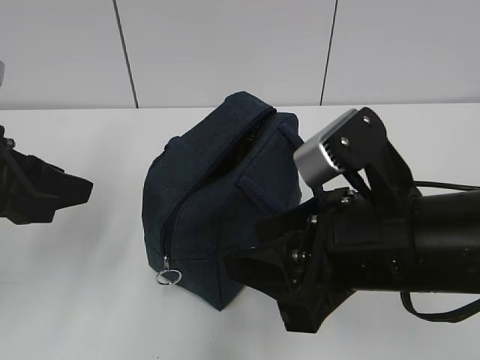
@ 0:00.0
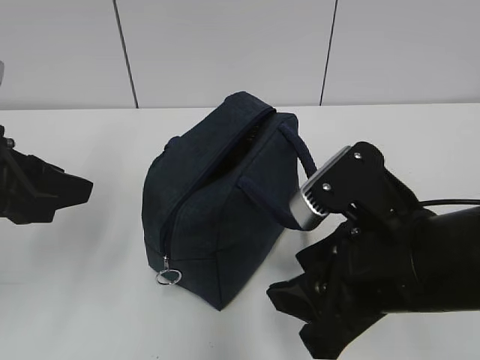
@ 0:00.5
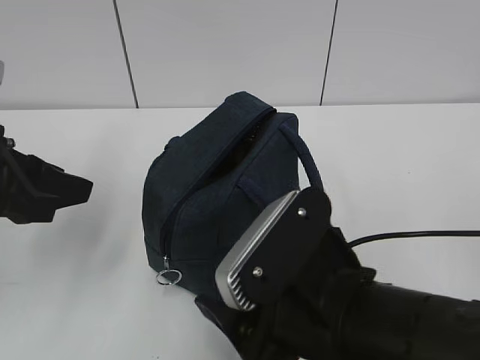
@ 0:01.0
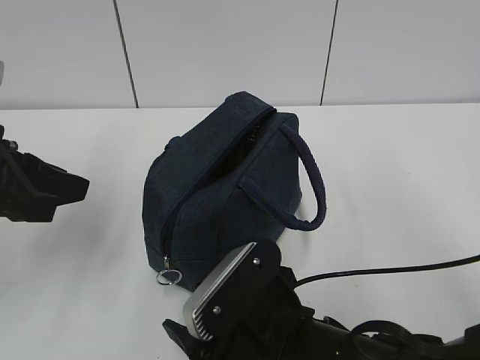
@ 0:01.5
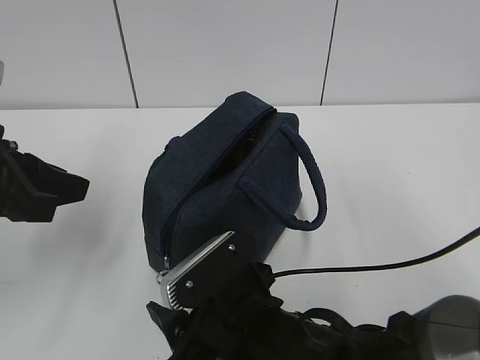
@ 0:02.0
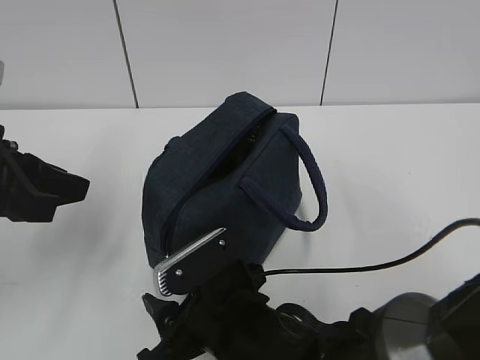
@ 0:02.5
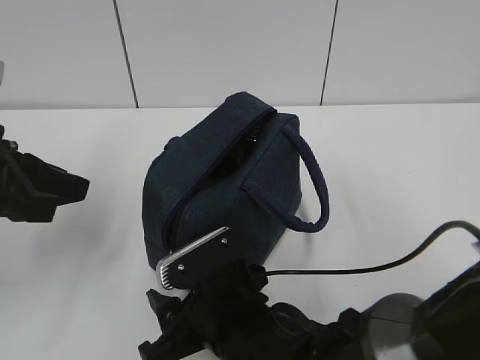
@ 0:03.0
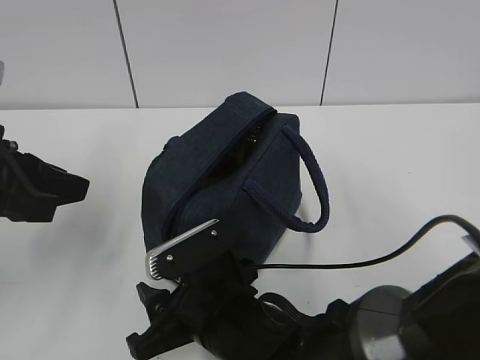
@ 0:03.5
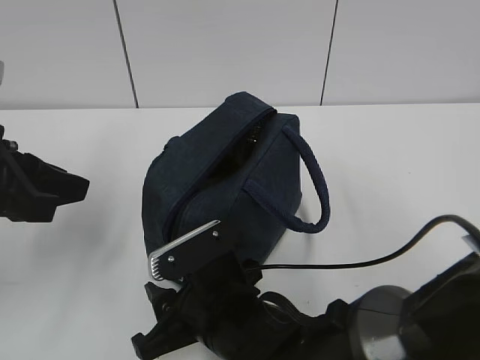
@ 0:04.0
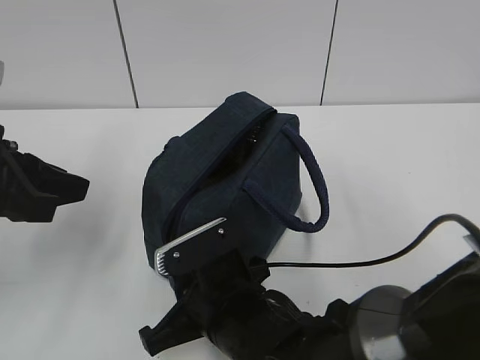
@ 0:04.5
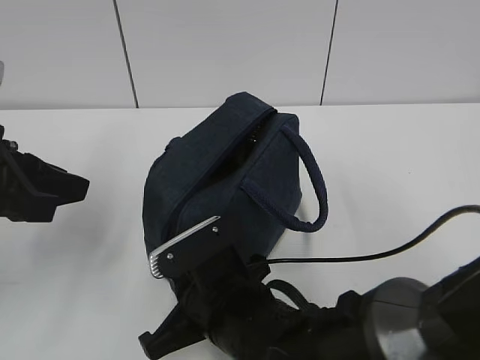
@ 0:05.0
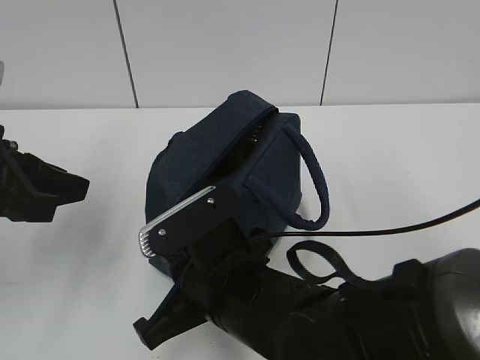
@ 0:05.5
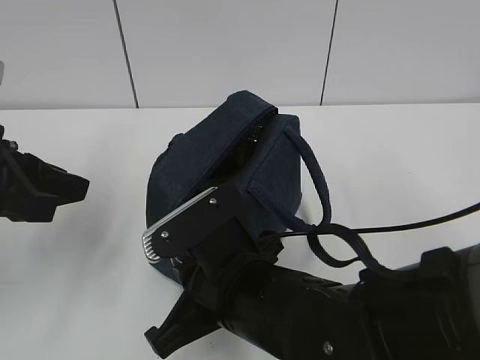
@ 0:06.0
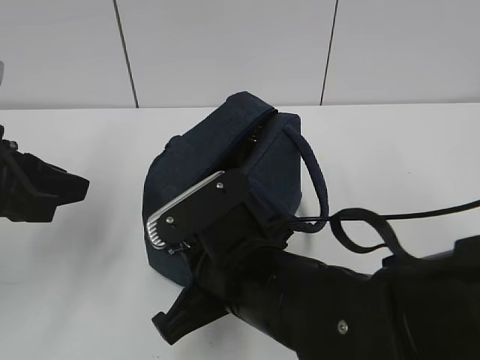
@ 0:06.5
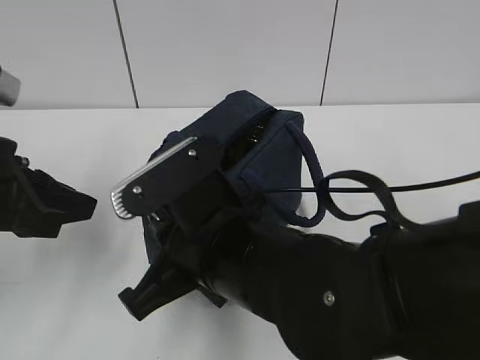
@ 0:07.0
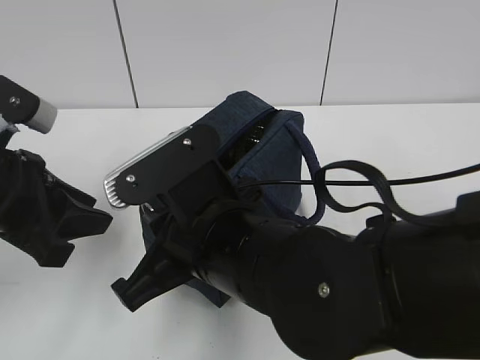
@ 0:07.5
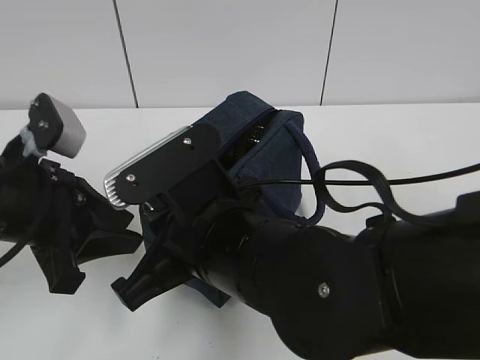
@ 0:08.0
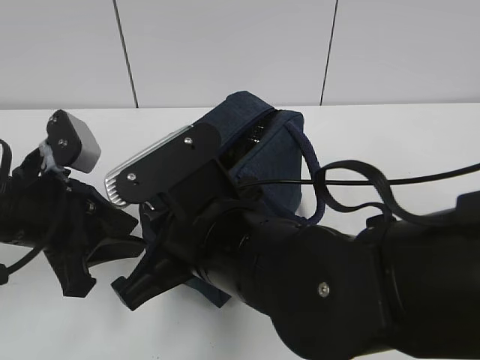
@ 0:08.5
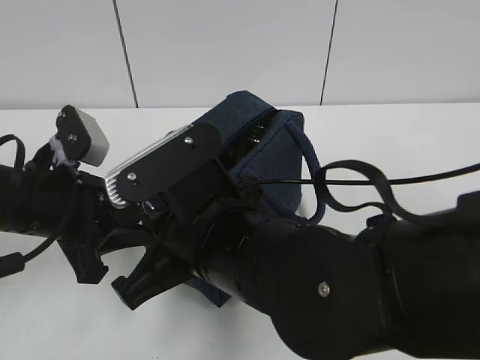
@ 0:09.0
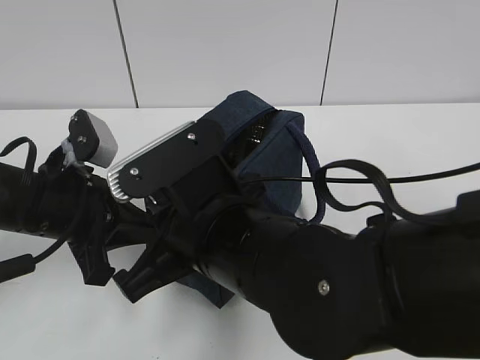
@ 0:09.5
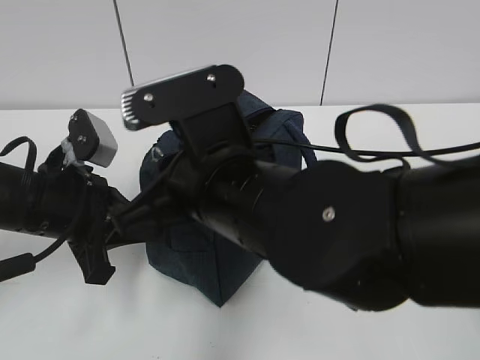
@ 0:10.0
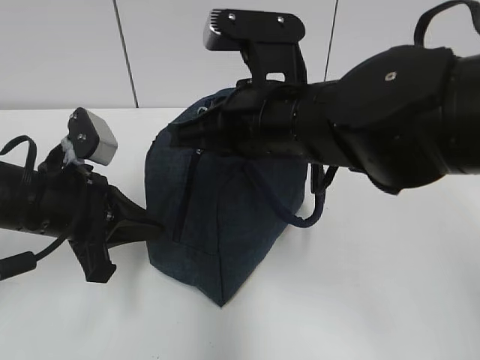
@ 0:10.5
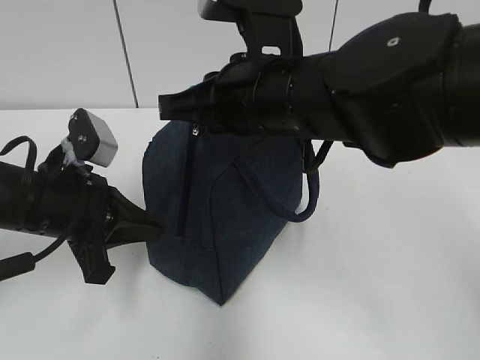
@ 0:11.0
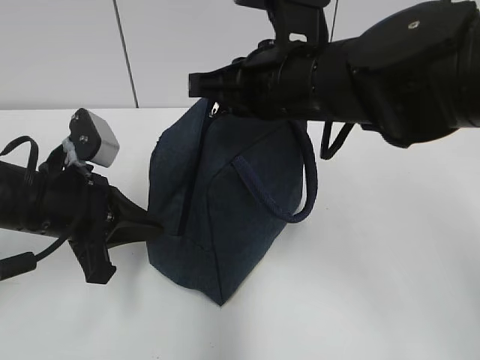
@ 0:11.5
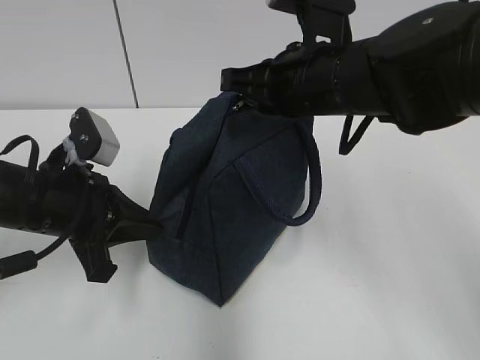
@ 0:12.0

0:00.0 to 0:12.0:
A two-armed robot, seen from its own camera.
0:00.0 to 0:02.0: The right gripper is displaced downward and to the left by some 15 cm.
0:02.0 to 0:04.0: There are only small adjustments of the grippers.
0:04.0 to 0:06.0: The right gripper heads upward, covering about 5 cm, and closes up.
0:06.0 to 0:08.0: The right gripper is displaced upward by about 5 cm; the left gripper shifts by about 5 cm.
0:08.0 to 0:10.0: The left gripper changes place by some 5 cm, and closes.
0:10.0 to 0:12.0: The right gripper shifts approximately 15 cm forward and to the right.

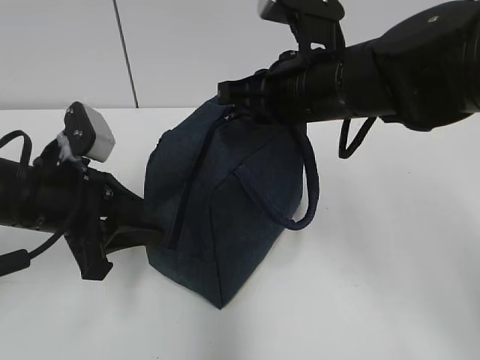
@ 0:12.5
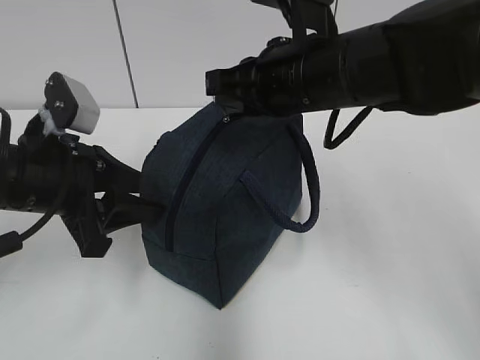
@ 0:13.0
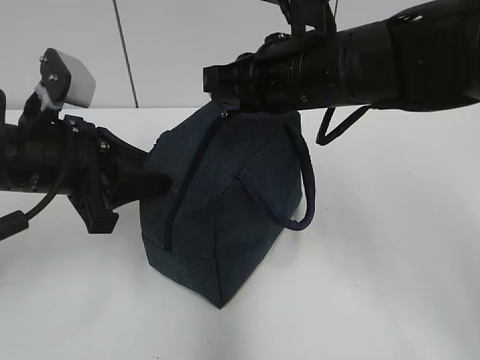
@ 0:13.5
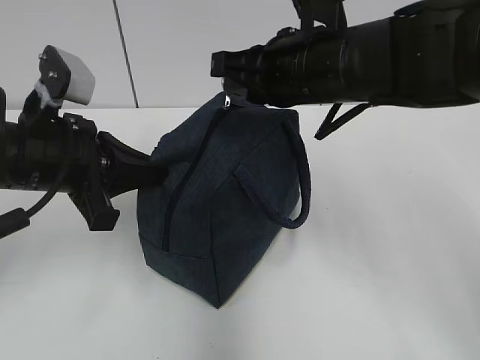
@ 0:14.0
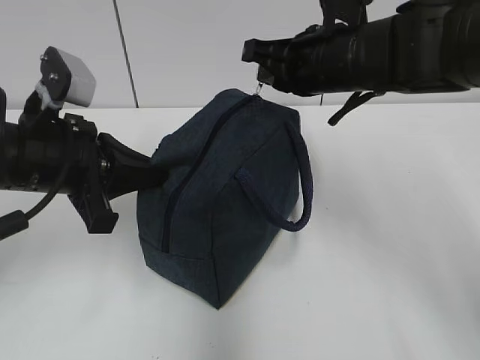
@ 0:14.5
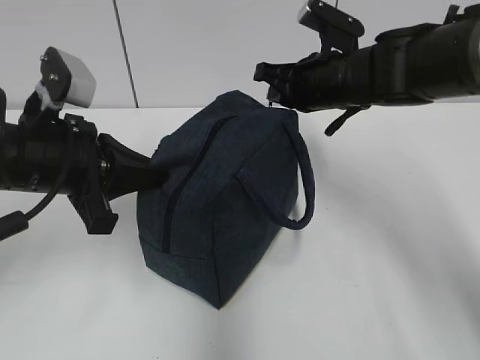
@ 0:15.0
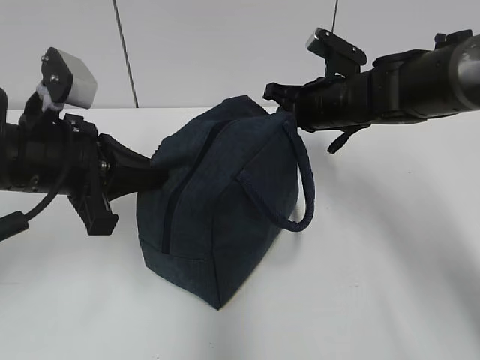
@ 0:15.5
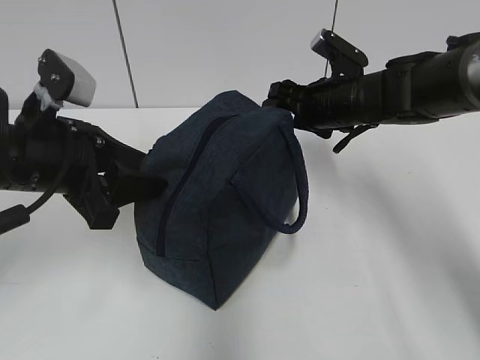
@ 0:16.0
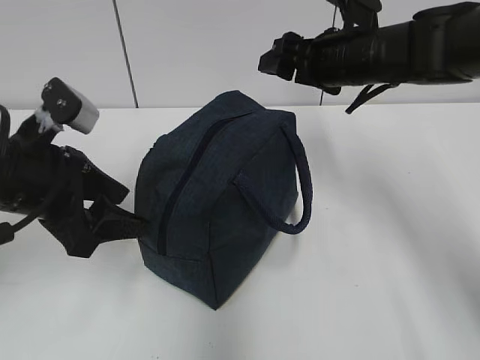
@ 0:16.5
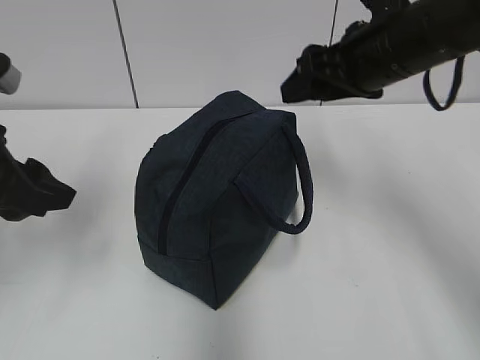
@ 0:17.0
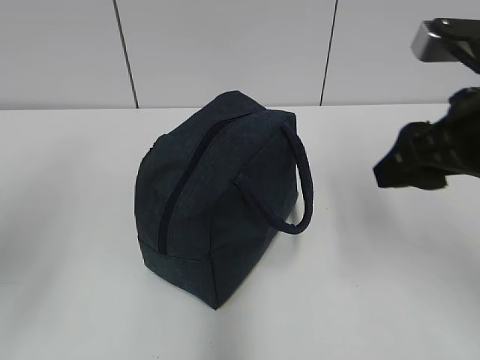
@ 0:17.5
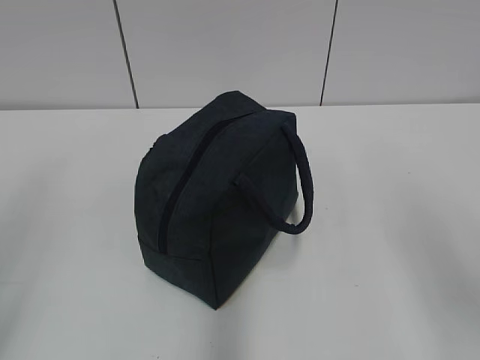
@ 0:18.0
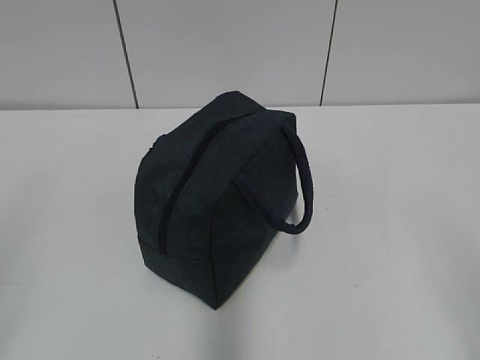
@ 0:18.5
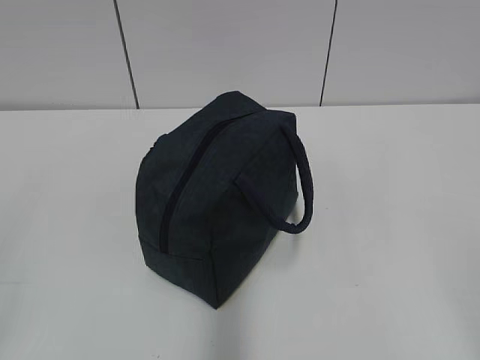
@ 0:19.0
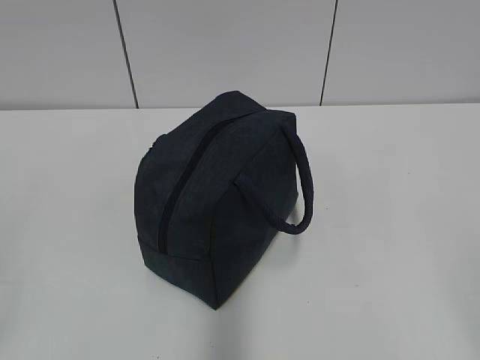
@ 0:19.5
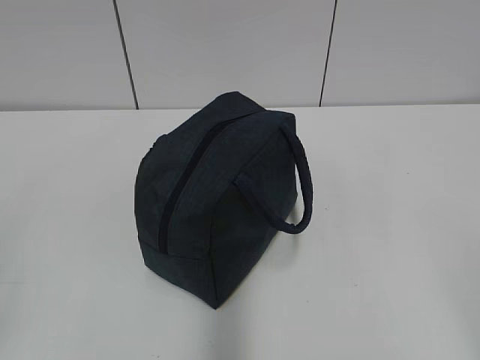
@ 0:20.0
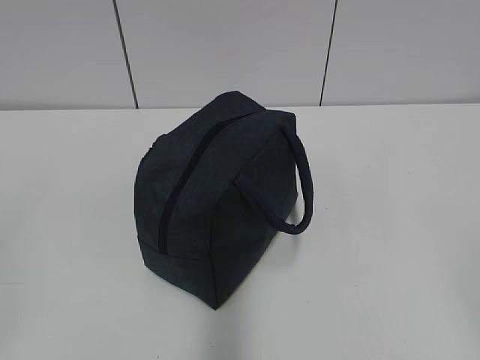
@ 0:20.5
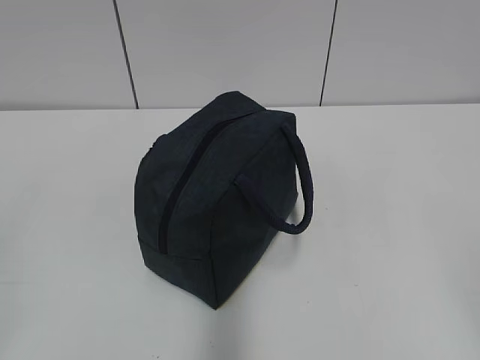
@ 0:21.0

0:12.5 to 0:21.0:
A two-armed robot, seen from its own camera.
0:12.5 to 0:14.5: The left gripper closes its fingers.
0:14.5 to 0:16.5: The left gripper opens its fingers. The right gripper heads forward, covering roughly 5 cm, reaches some 10 cm downward, then returns, and opens.
0:16.5 to 0:19.0: The left gripper shifts some 30 cm backward and to the left. Meanwhile the right gripper goes some 40 cm backward.
